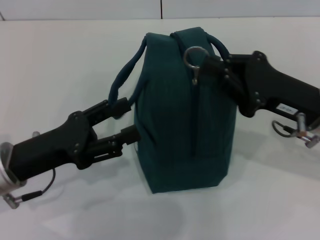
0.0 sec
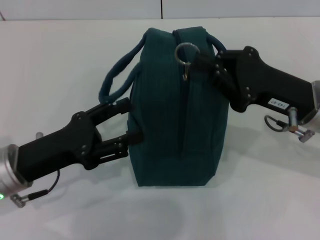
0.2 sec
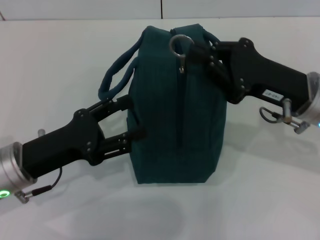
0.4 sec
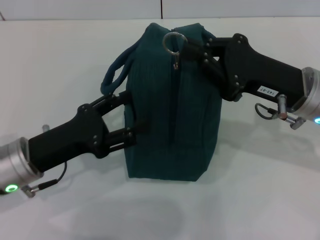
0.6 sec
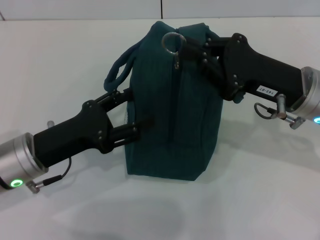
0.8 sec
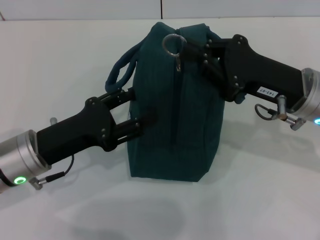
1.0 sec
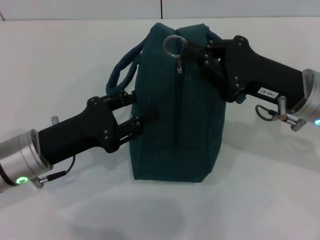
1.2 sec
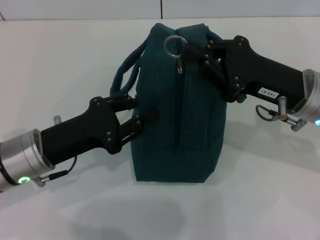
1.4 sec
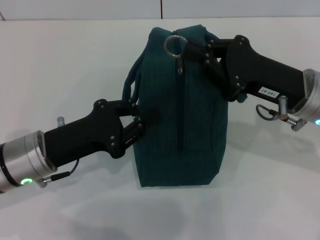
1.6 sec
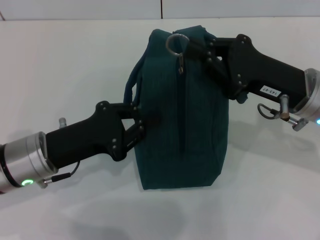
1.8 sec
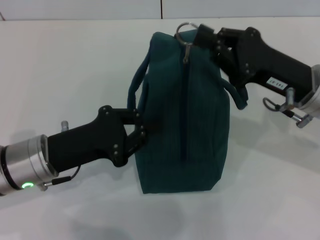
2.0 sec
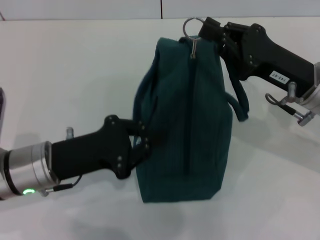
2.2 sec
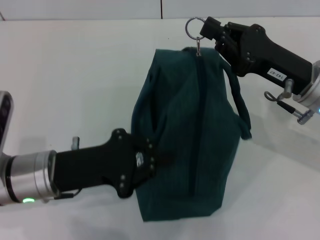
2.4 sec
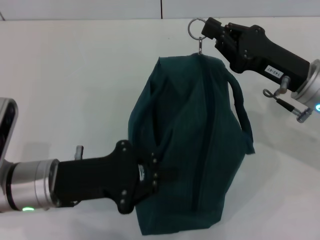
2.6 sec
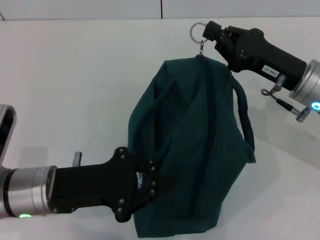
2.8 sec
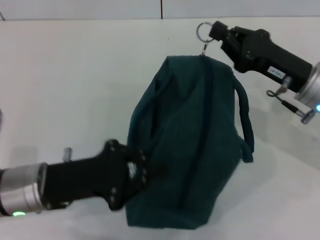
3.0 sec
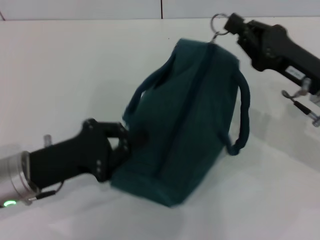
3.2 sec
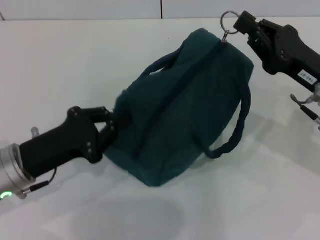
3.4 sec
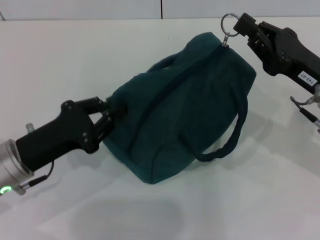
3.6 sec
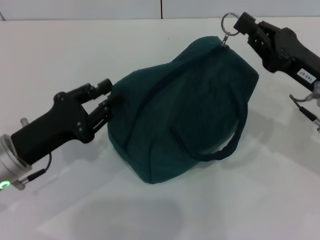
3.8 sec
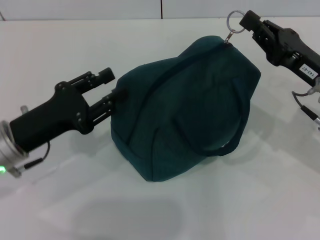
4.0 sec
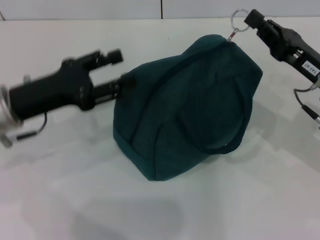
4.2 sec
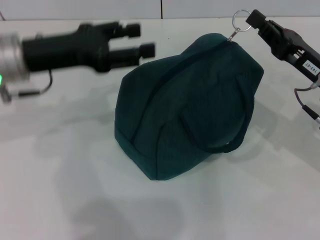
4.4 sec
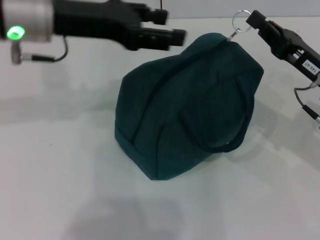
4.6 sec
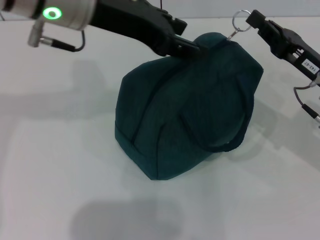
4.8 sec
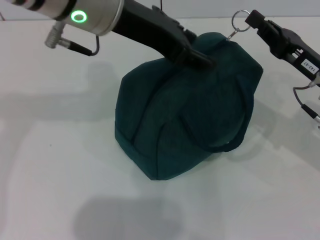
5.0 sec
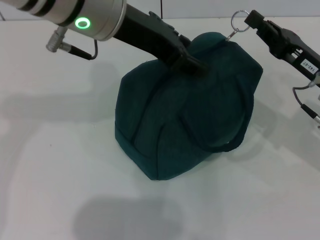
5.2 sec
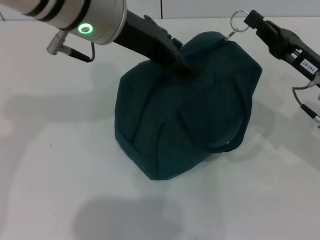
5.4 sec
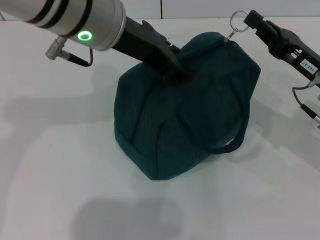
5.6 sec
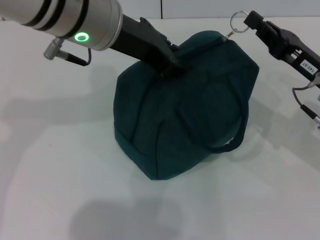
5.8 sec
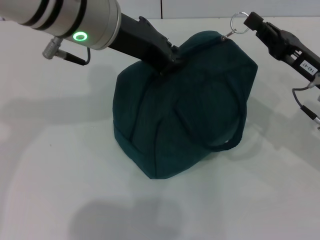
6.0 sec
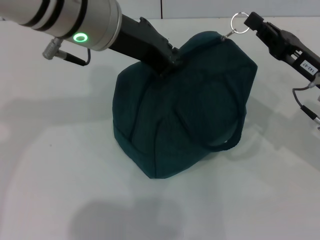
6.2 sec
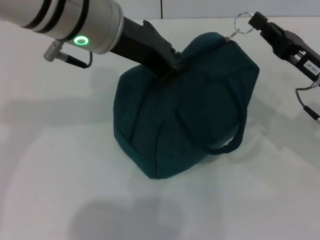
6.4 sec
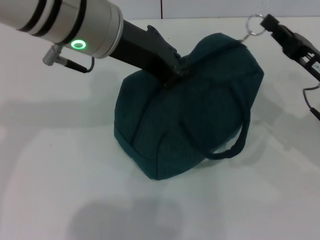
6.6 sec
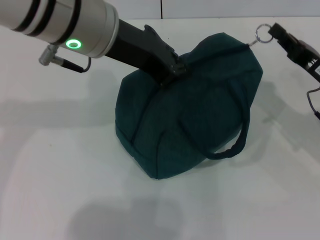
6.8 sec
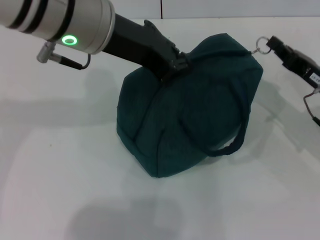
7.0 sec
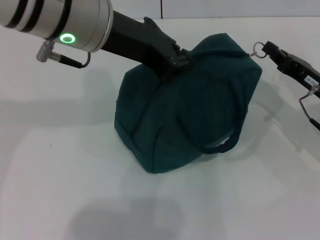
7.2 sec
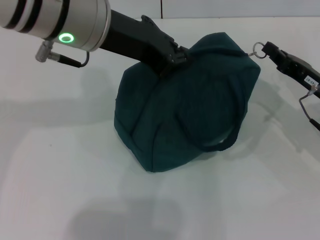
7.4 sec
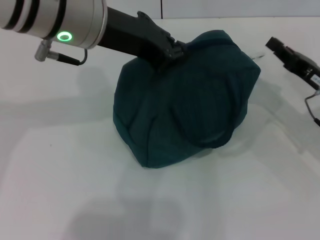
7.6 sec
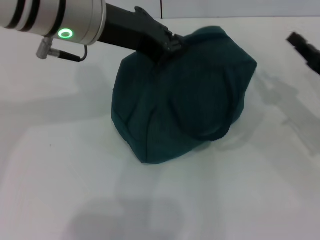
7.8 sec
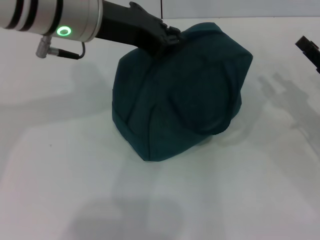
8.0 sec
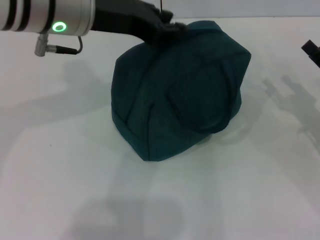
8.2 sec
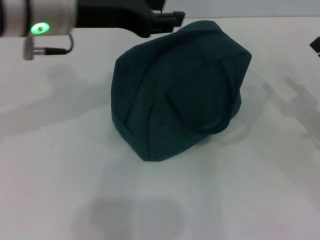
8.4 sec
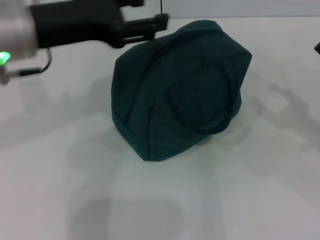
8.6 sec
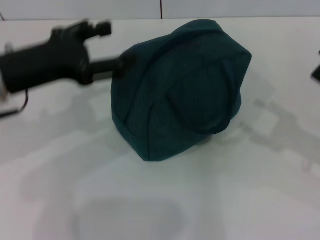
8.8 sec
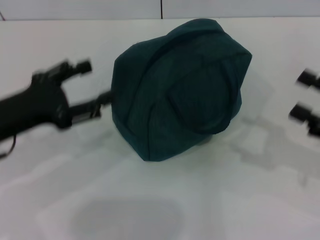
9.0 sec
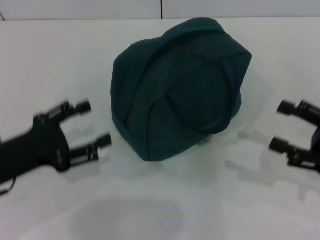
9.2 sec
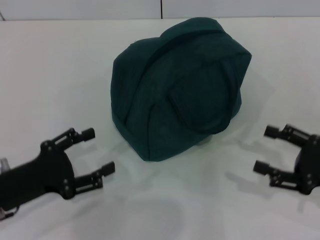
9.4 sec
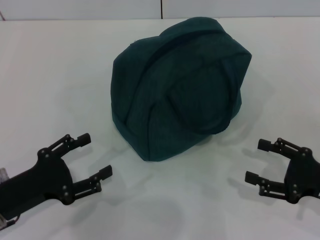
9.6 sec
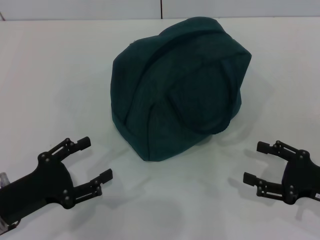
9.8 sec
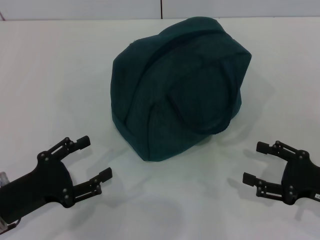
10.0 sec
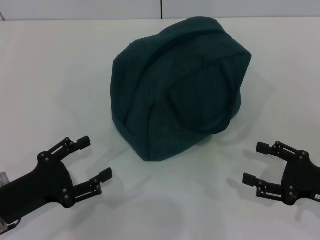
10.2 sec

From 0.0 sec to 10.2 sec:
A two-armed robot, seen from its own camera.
Step, from 0.0 sec to 7.4 sec: Zip up the lunch bag with your right hand.
Step, from 7.8 sec to 8.2 sec: Hold the lunch bag with your left hand.
From 0.0 sec to 1.4 sec: The left gripper closes up.
From 1.4 sec to 3.0 sec: The left gripper closes its fingers.
From 3.0 sec to 4.4 sec: The left gripper is displaced upward and forward by some 15 cm, and opens.
From 4.4 sec to 5.8 sec: The left gripper moves to the right and upward, about 15 cm.
From 5.8 sec to 7.2 sec: The left gripper closes.
From 7.2 sec to 8.8 sec: The right gripper shifts about 10 cm backward and to the right, and opens. Meanwhile the left gripper travels to the left and downward by about 15 cm, and opens.
From 8.8 sec to 10.2 sec: The right gripper shifts about 10 cm downward. Meanwhile the left gripper shifts some 20 cm downward and backward.
